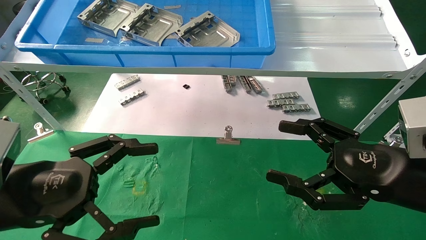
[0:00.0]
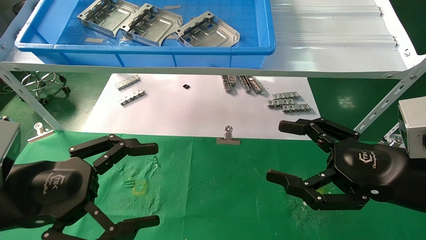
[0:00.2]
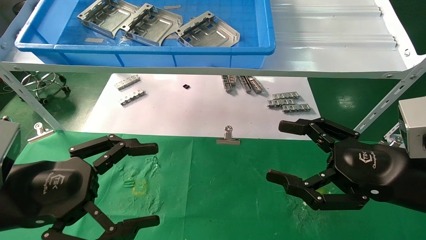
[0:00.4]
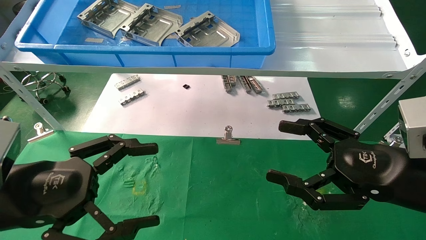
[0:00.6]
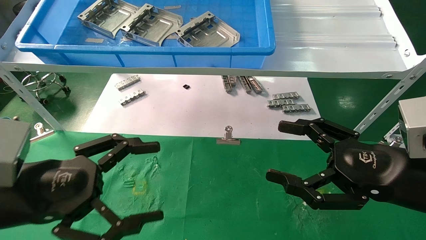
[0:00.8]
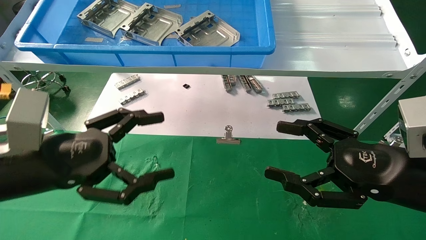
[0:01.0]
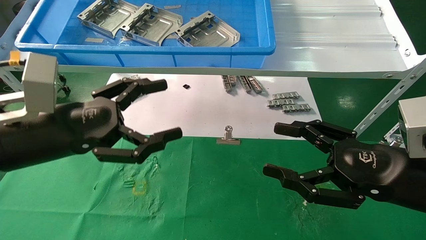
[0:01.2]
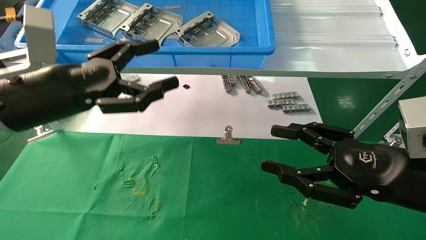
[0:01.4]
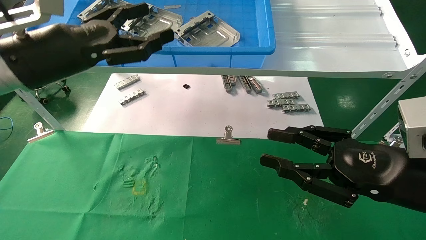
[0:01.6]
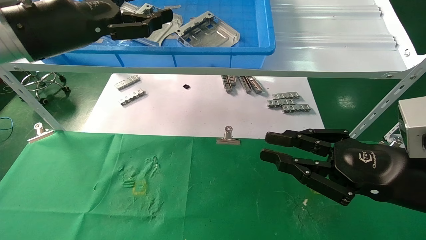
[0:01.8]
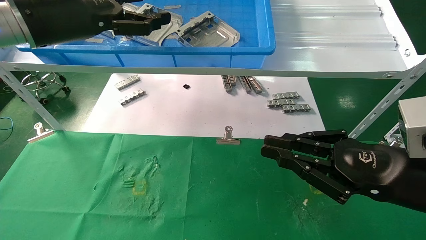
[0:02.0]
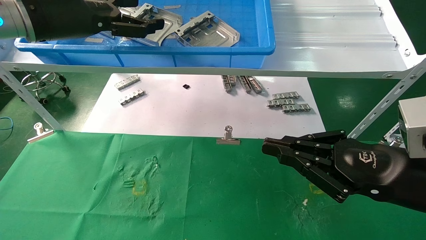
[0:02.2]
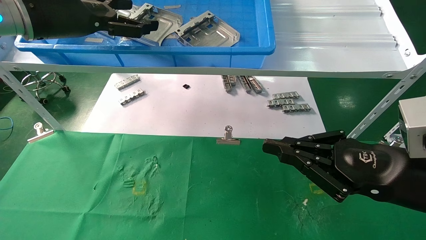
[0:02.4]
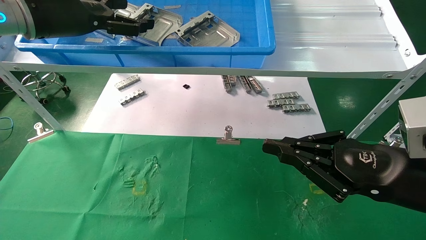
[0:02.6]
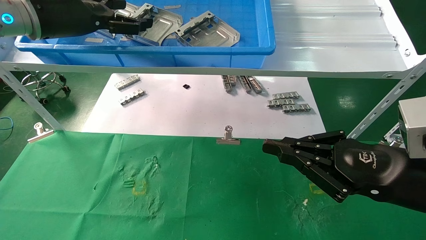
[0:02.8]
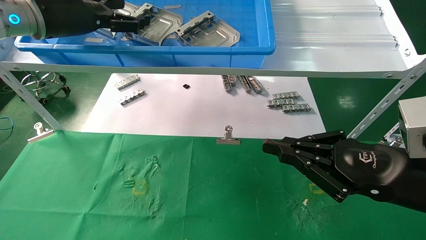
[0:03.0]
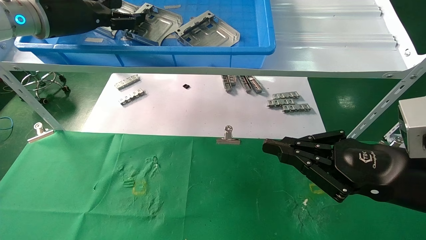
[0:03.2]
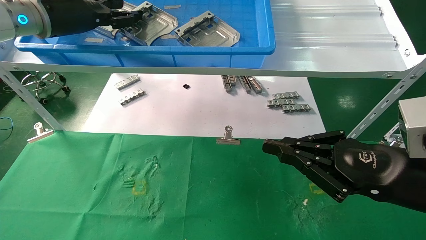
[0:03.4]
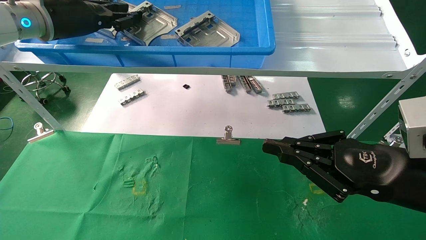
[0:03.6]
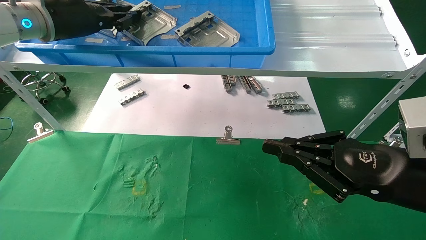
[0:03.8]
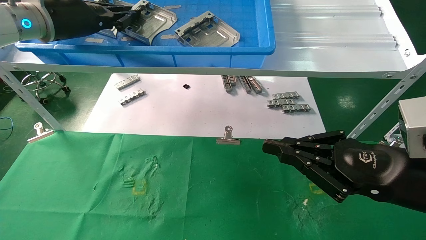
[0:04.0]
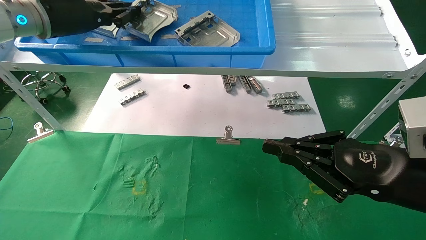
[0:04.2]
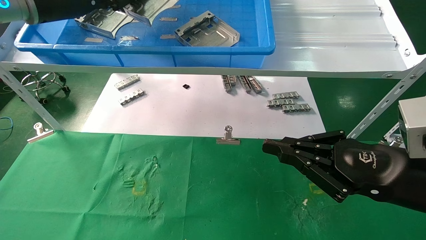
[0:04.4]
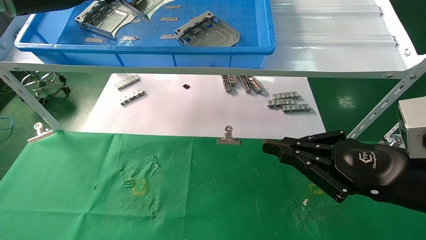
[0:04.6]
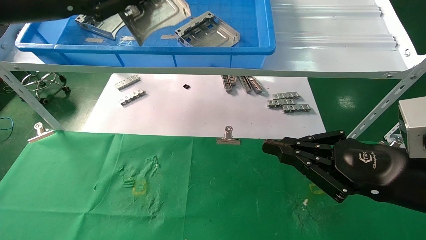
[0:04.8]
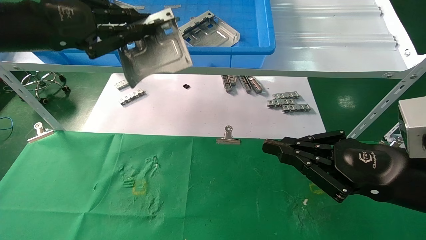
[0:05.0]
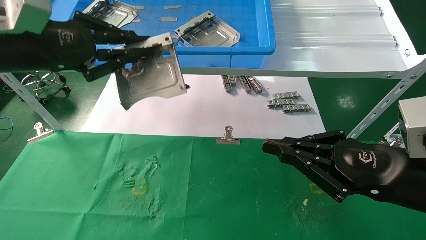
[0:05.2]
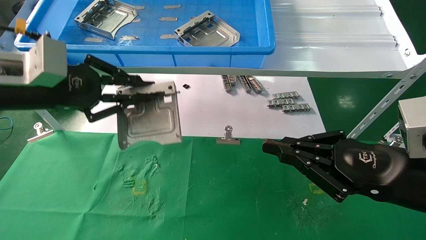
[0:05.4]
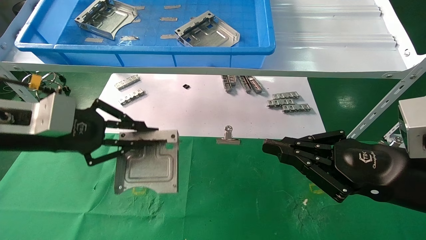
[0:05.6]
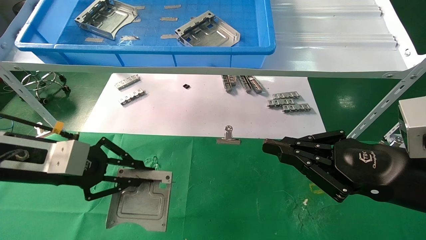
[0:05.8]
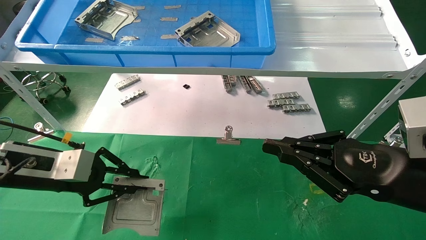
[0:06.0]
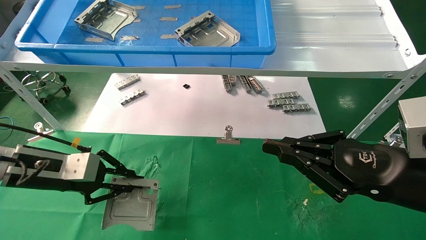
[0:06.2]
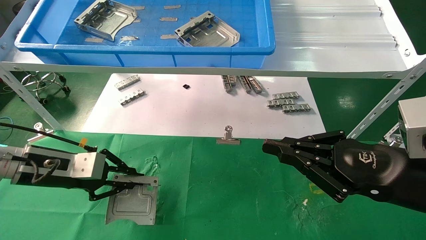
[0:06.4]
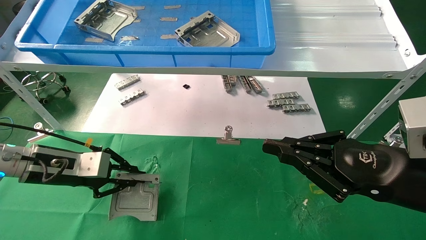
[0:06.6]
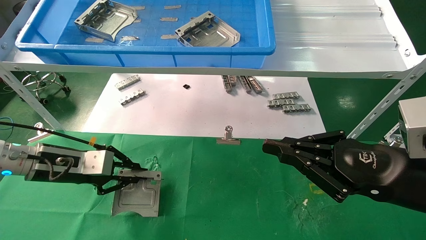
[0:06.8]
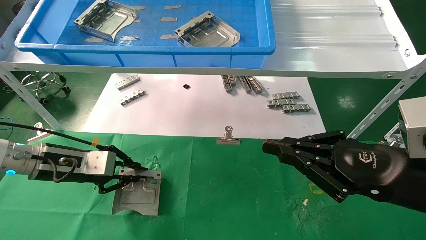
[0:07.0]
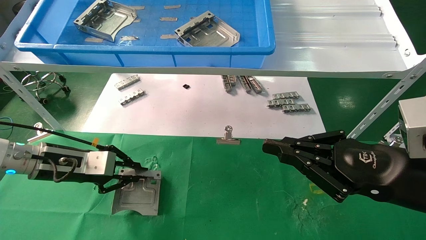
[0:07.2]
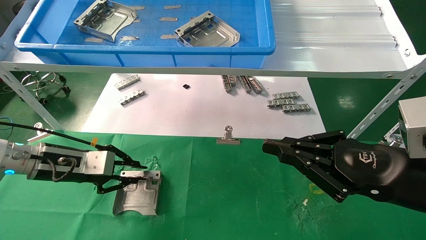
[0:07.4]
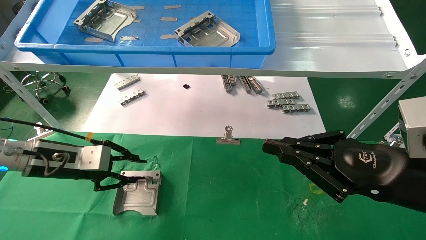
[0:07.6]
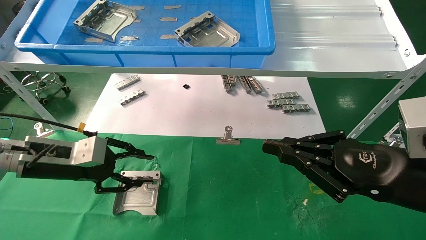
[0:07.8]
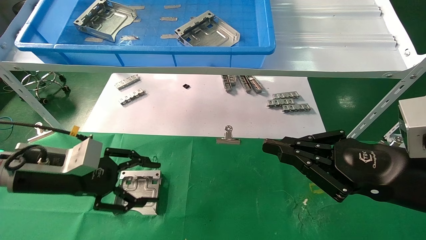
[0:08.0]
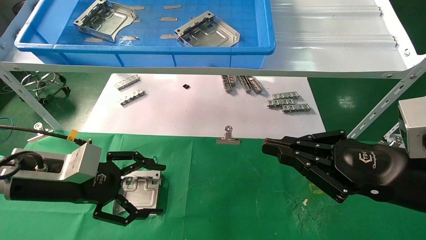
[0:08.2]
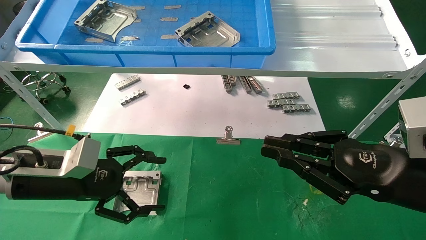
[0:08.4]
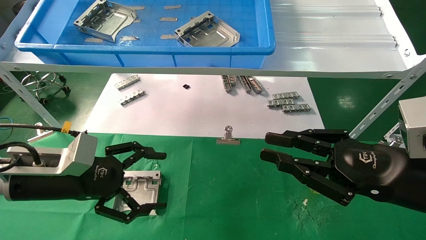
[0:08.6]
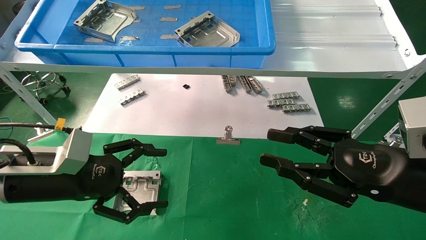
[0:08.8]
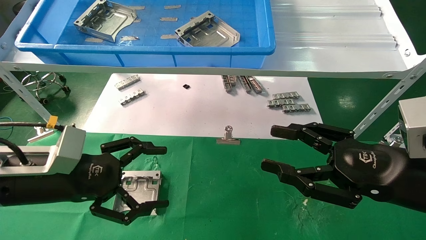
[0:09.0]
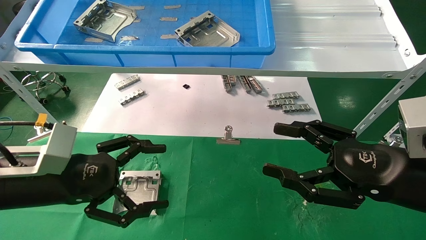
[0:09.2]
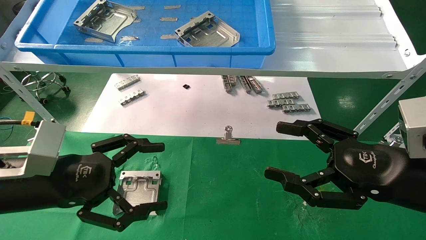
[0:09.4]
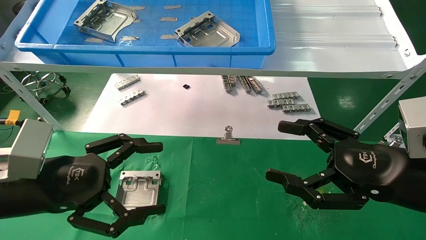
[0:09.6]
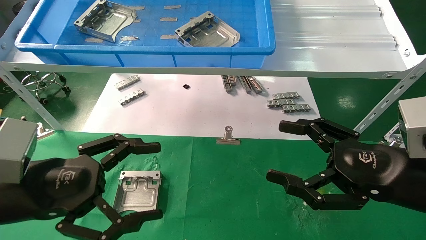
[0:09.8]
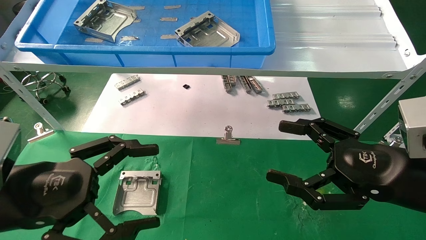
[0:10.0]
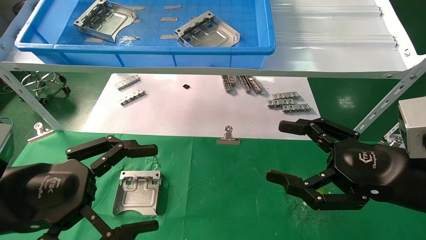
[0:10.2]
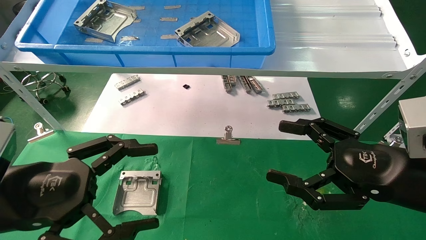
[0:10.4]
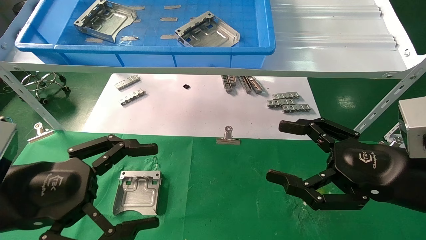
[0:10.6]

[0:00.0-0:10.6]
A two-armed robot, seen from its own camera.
Task of the whole recording: use the mechanical arm to pick up the parts and place them on the table.
Step, 0:01.2 to 0:04.0: Pick up the hard drive bracket from the feeding area.
Step, 0:04.2 to 0:07.4: Place the hard drive bracket into the box.
0:00.0 to 0:01.6: The left gripper travels upward and forward by about 20 cm, while the right gripper closes its fingers.
0:01.6 to 0:03.0: The right gripper closes; the left gripper is displaced forward and upward by approximately 10 cm.
0:03.0 to 0:04.6: The left gripper moves some 5 cm, and closes up.
0:04.6 to 0:06.0: The left gripper moves downward, some 25 cm.
0:06.0 to 0:07.6: The left gripper changes place by approximately 5 cm.
0:07.6 to 0:09.0: The left gripper moves backward, approximately 10 cm, and opens up, while the right gripper opens.
0:09.0 to 0:10.6: The left gripper goes roughly 10 cm backward; the right gripper opens up.
